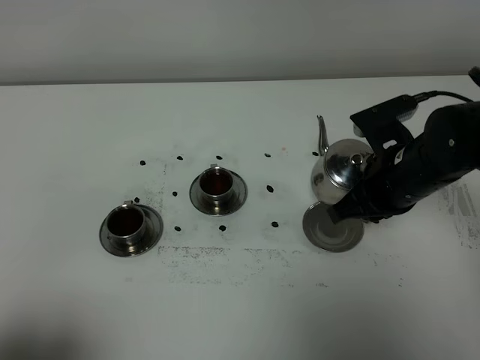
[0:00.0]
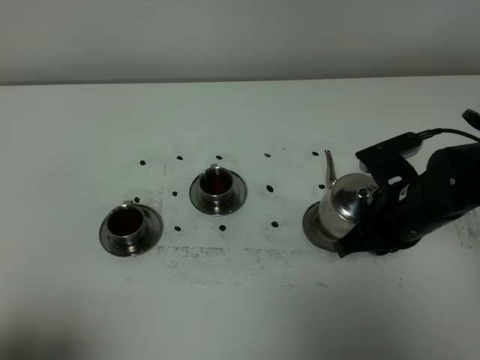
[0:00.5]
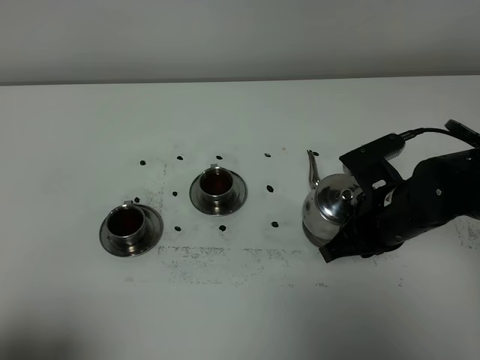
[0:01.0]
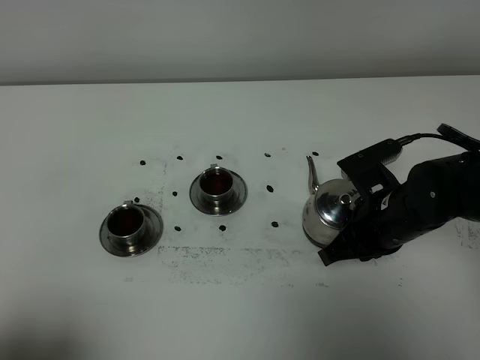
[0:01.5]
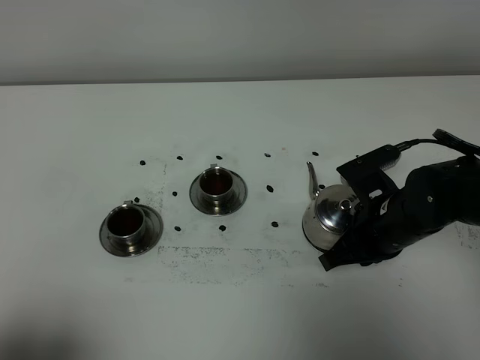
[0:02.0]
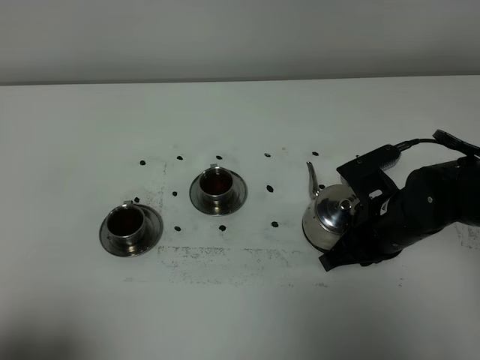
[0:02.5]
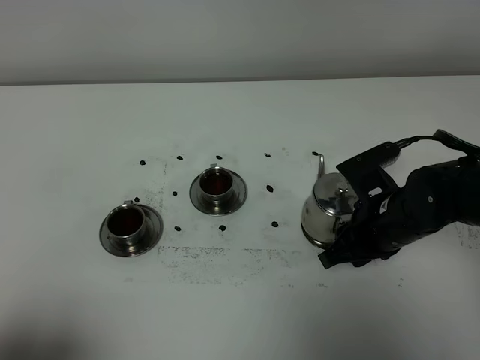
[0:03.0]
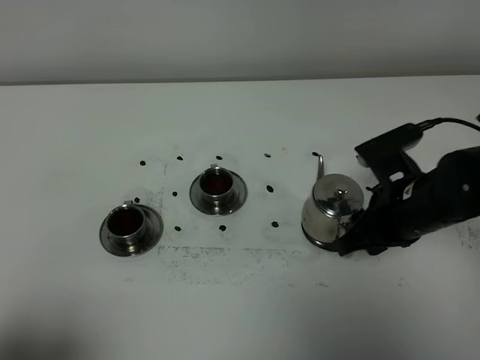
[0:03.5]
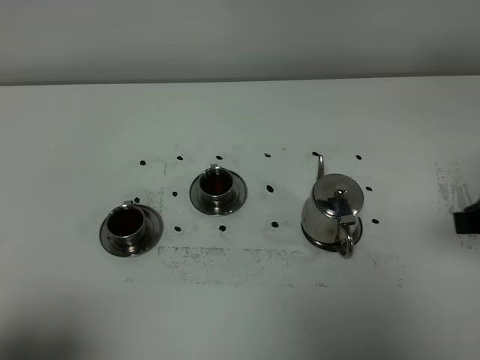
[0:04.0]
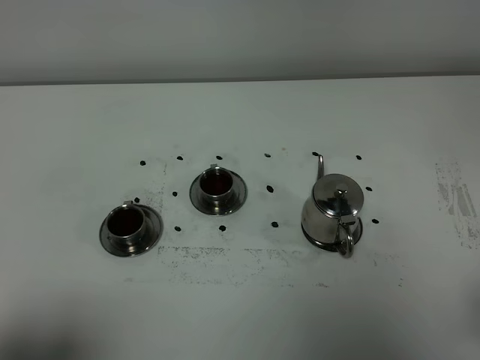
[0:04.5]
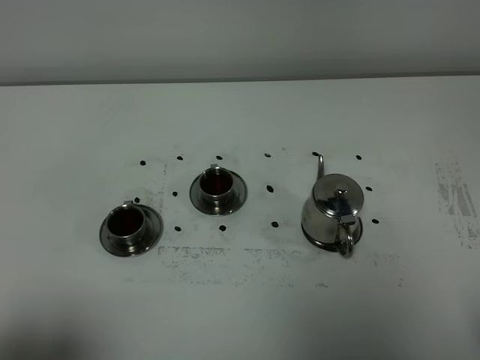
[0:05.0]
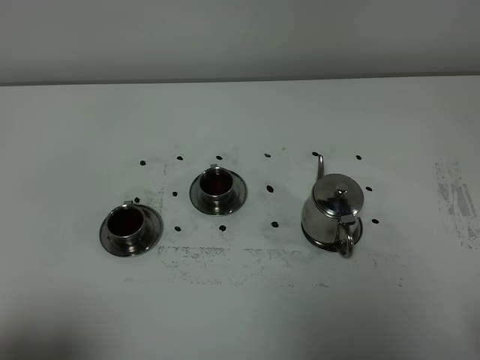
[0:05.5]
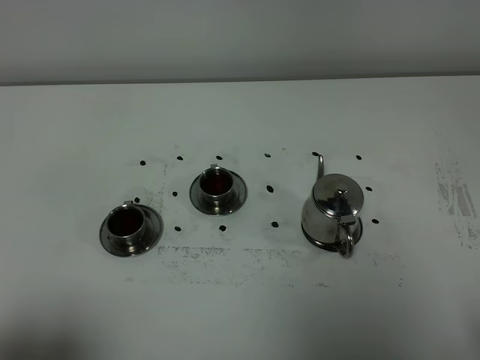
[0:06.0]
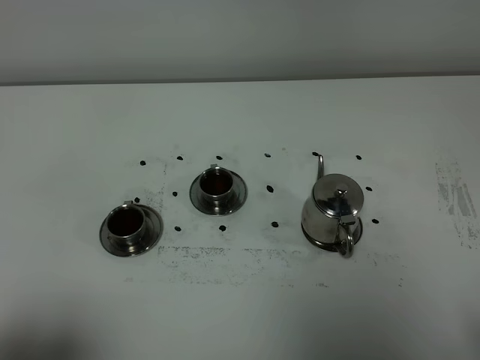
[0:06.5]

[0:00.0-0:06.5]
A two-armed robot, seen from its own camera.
Task of the whole recording: grasp the stainless steel teapot and pour the tea into the two stainless steel teacups one by one, put the stainless steel teapot back in its original place.
0:00.0 to 0:02.0: The right gripper moves approximately 5 cm.
0:02.0 to 0:04.5: The right gripper moves backward, upward and to the right, about 30 cm, and opens up.

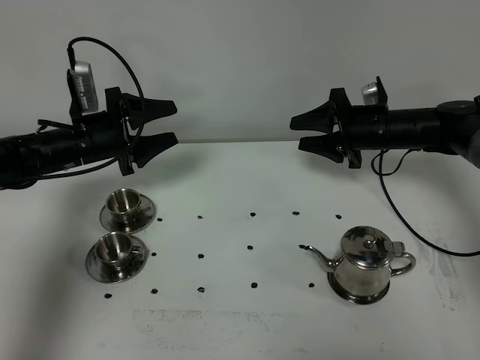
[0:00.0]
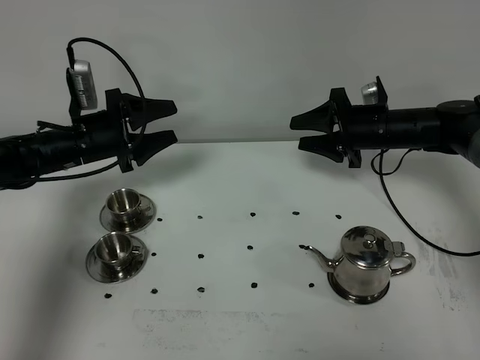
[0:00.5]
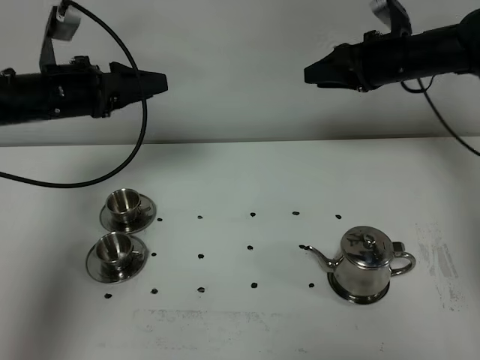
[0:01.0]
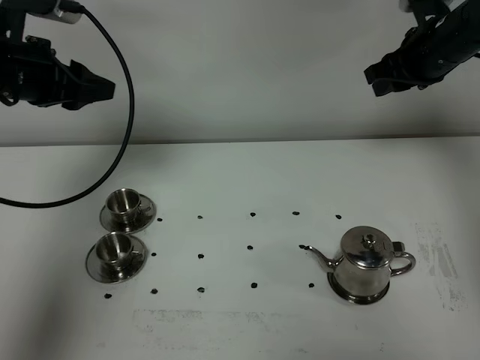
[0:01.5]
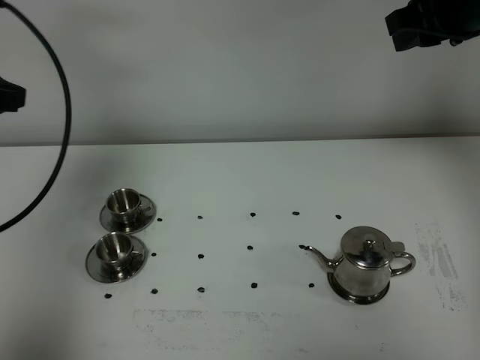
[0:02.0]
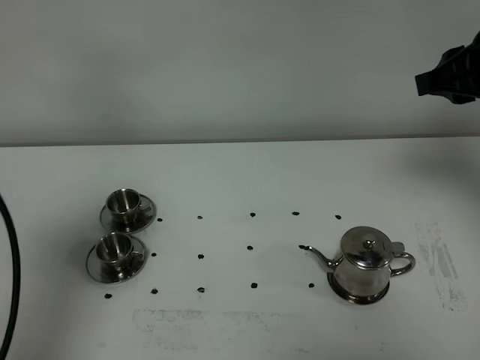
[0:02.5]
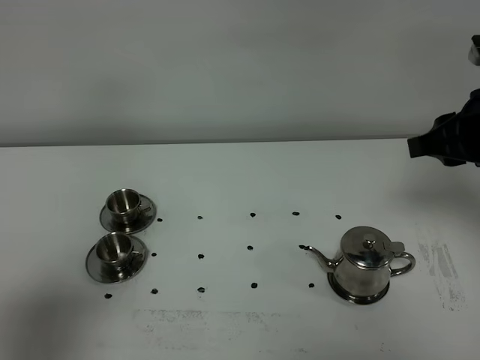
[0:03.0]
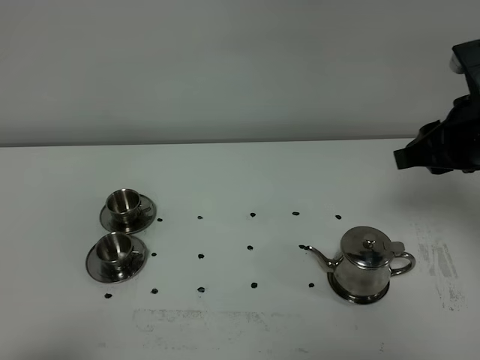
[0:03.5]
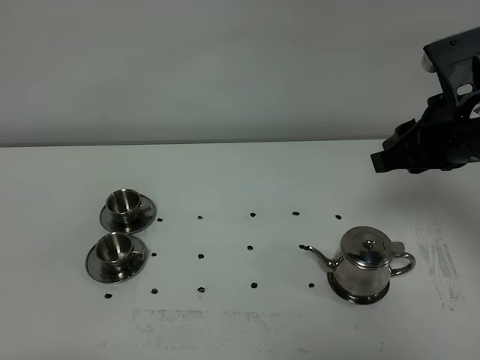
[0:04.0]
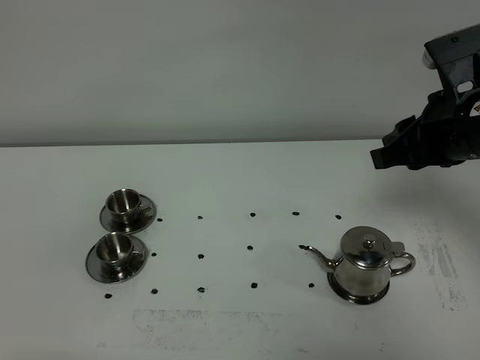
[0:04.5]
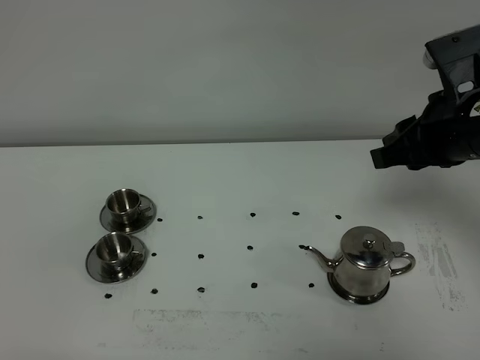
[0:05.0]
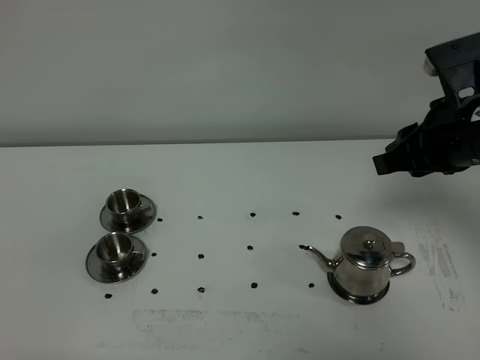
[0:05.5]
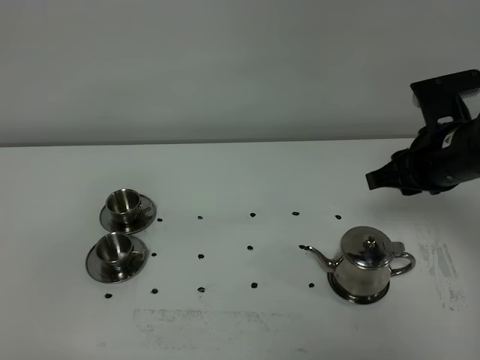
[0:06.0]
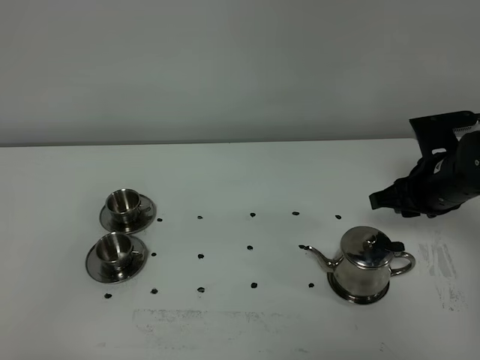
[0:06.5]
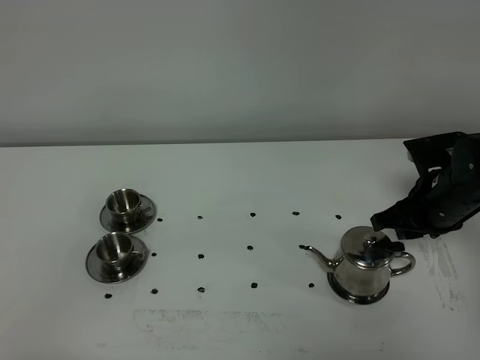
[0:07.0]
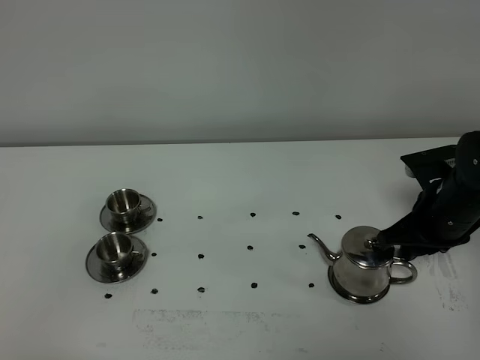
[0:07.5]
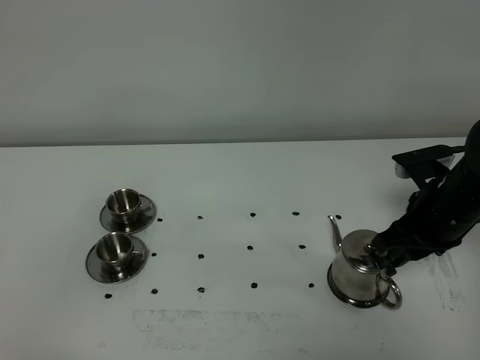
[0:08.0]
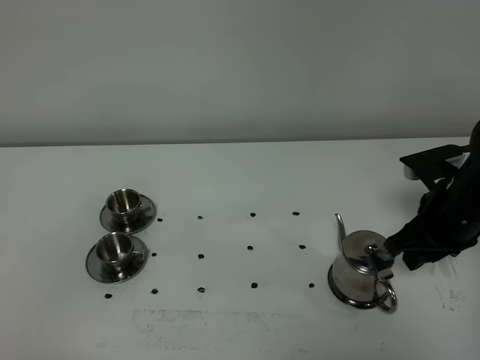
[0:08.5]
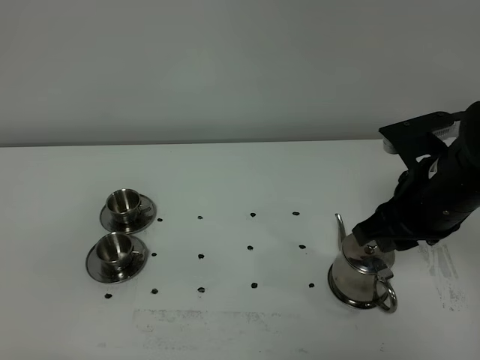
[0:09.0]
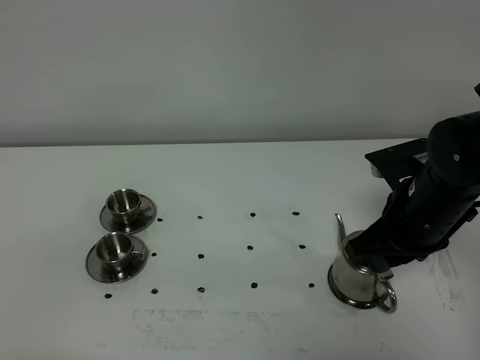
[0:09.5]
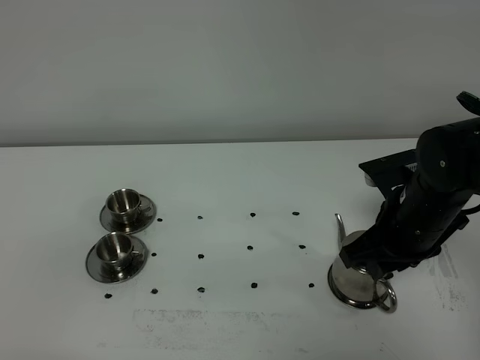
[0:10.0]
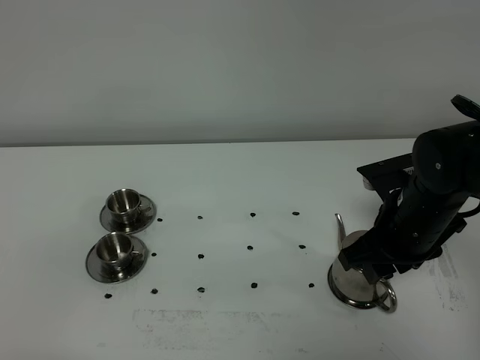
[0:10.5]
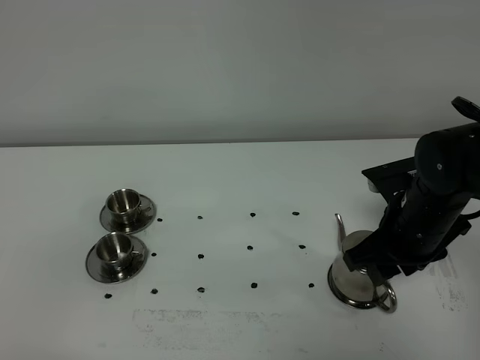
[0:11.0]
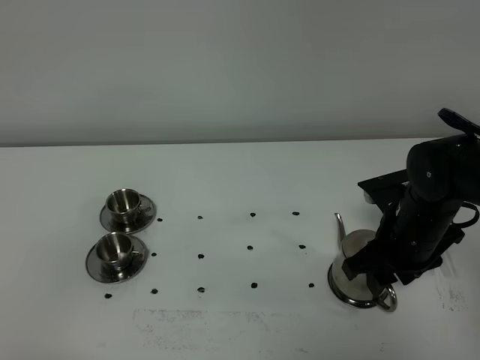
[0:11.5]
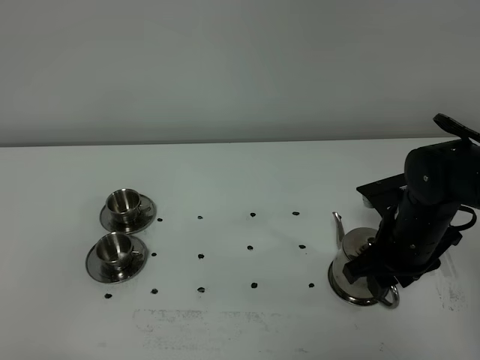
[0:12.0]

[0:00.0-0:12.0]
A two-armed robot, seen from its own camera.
Task of the whole recording: grasp the stainless steel teapot and pour the tea into the two stainless steel teacups one by one, put the stainless steel teapot back in its original place.
0:00.0 to 0:02.0: The right gripper goes approximately 25 cm upward, and closes; the left gripper is displaced upward and backward by roughly 25 cm, and closes.
0:02.0 to 0:04.0: The left gripper travels backward by about 35 cm. Meanwhile the right gripper shifts some 15 cm backward and downward.
0:04.0 to 0:06.0: The right gripper shifts approximately 5 cm downward.
0:06.0 to 0:08.0: The right gripper shifts some 5 cm downward.
0:10.0 to 0:12.0: The right gripper moves roughly 5 cm.

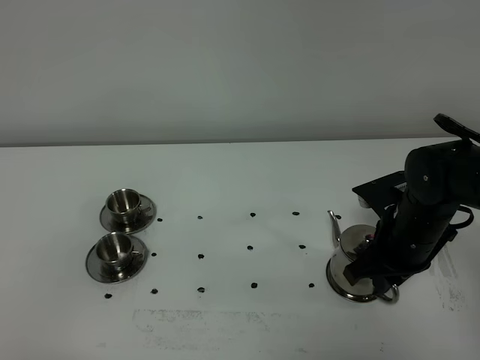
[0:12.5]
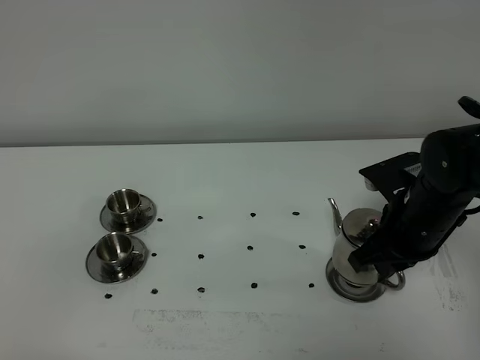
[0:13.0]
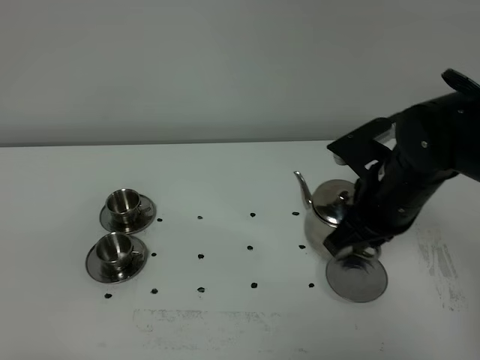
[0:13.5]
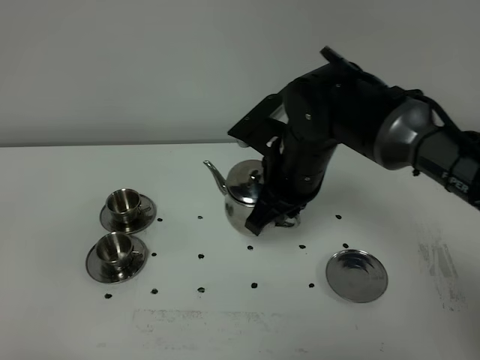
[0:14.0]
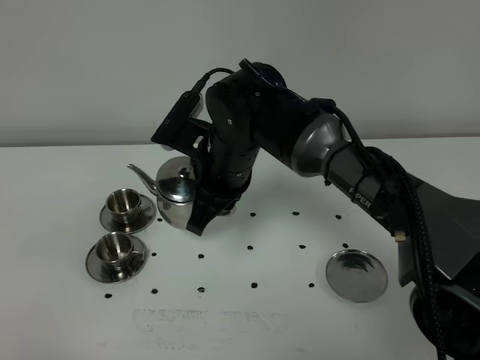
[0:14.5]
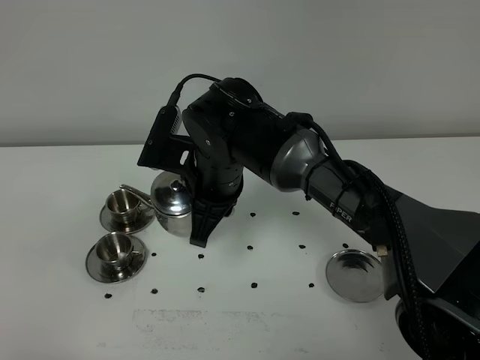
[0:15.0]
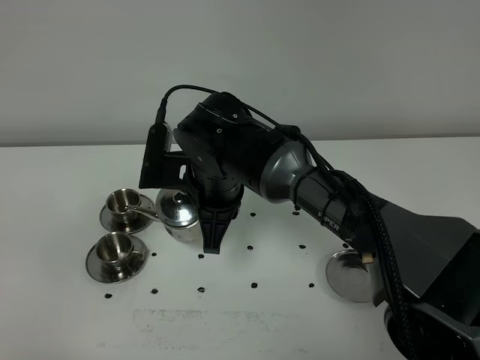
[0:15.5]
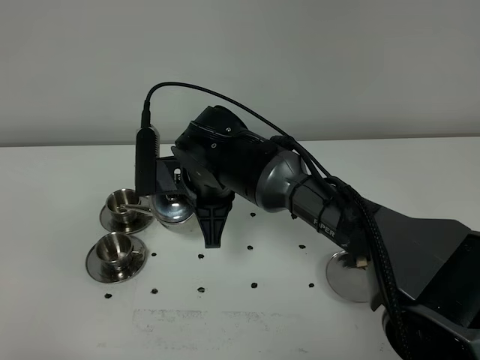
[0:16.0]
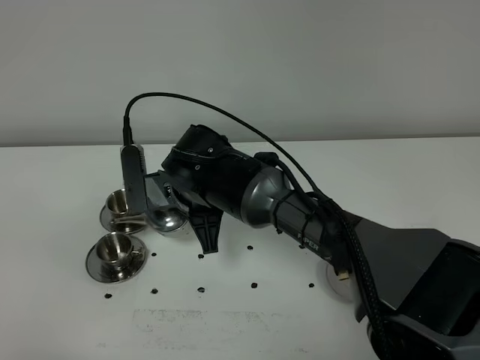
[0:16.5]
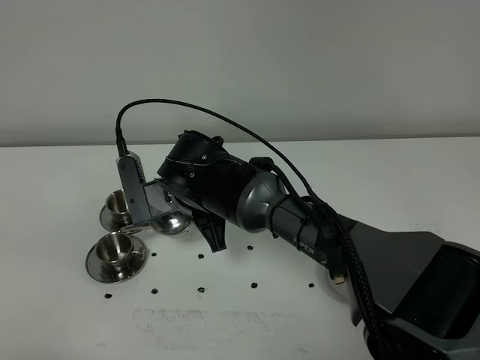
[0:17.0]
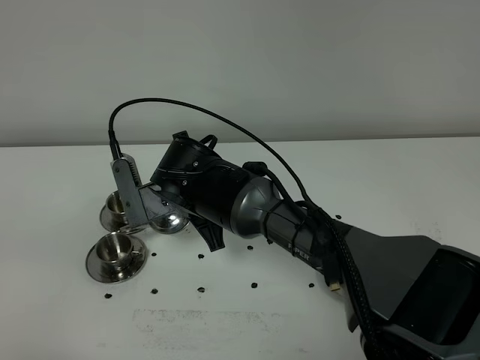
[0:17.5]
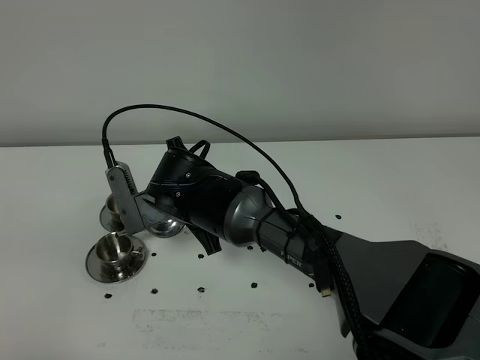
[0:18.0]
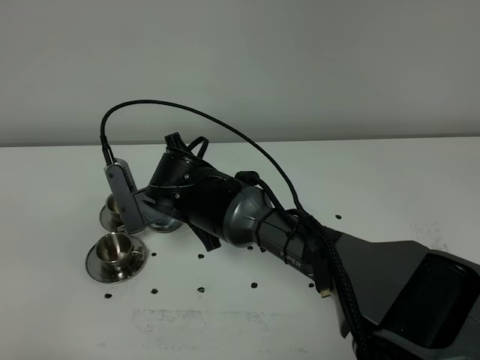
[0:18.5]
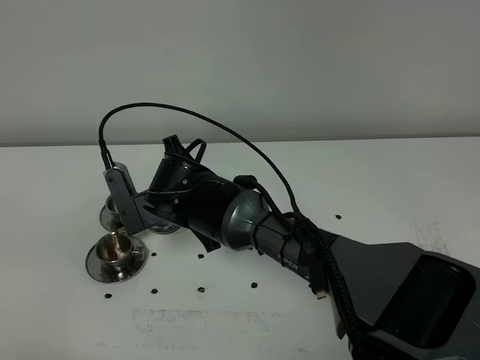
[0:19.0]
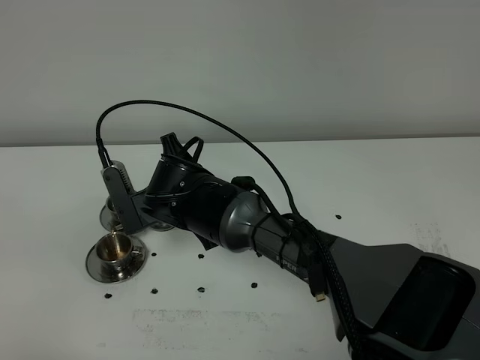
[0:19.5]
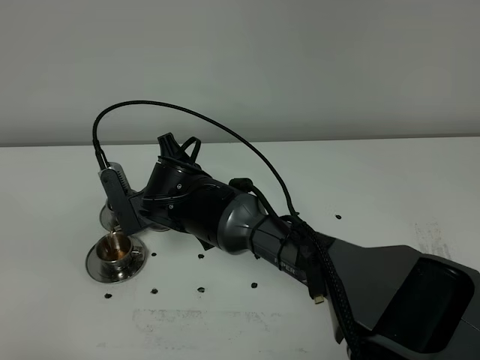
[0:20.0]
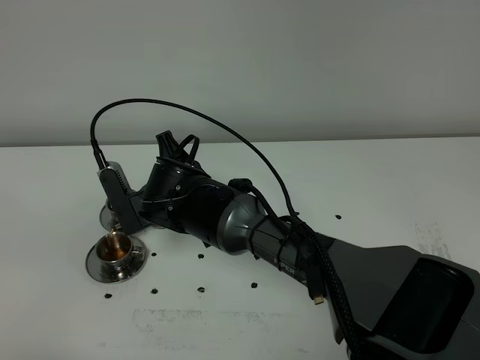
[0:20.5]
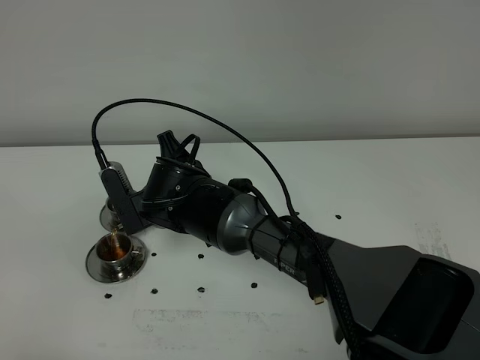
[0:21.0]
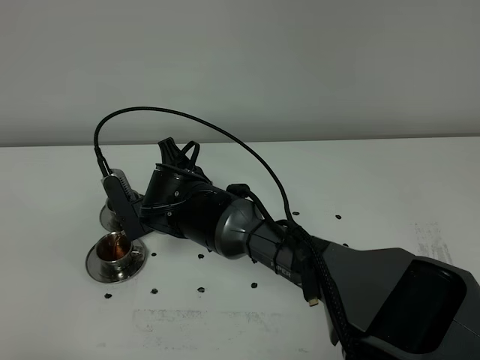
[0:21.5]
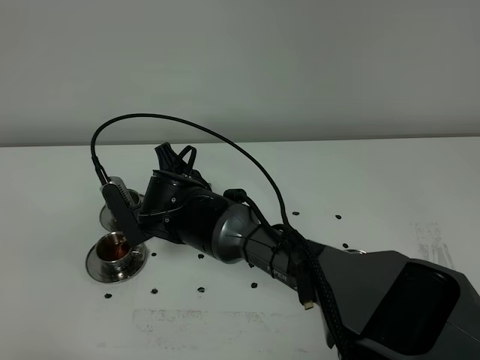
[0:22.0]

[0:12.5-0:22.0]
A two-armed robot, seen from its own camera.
Task of the whole recording: grasp the stainless steel teapot and pour the tea into the two stainless steel teacups one by one, put the stainless steel teapot back in its original place.
0:12.5 to 0:14.5: The right gripper heads to the left, covering approximately 20 cm.
0:14.5 to 0:16.5: The right gripper changes place by roughly 5 cm.
0:16.5 to 0:20.0: The grippers stay close to where they were, moving slightly.
0:20.0 to 0:22.0: The grippers make only small movements.
